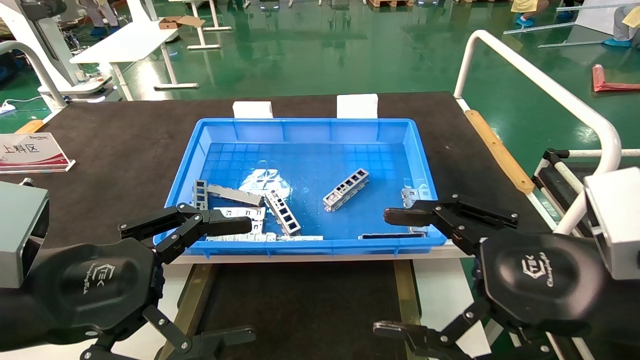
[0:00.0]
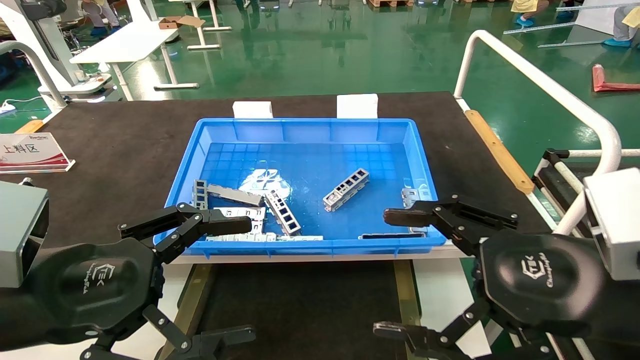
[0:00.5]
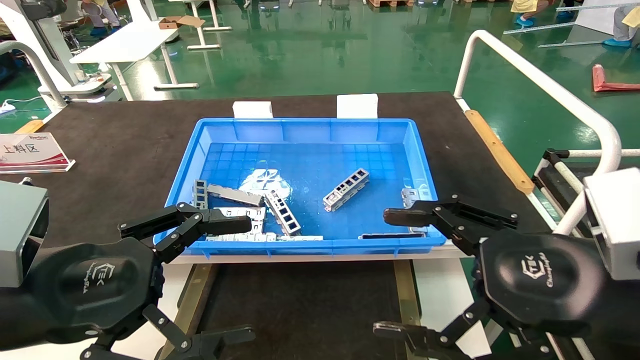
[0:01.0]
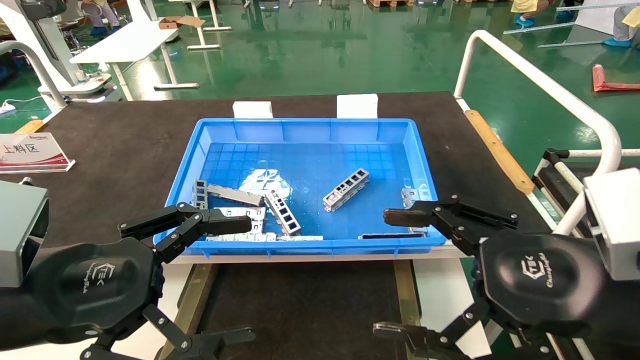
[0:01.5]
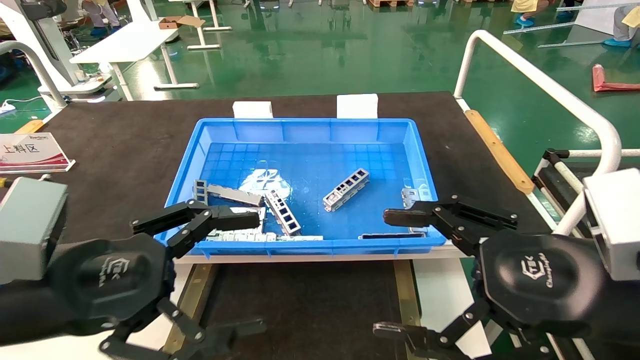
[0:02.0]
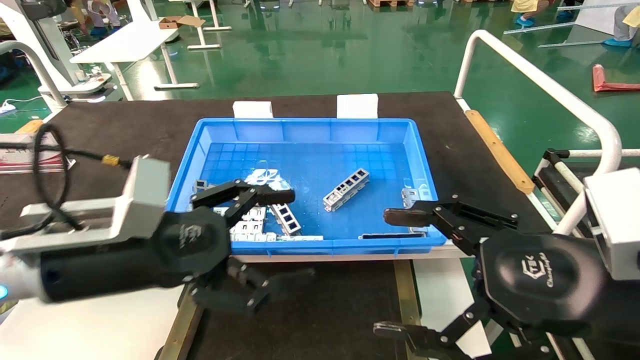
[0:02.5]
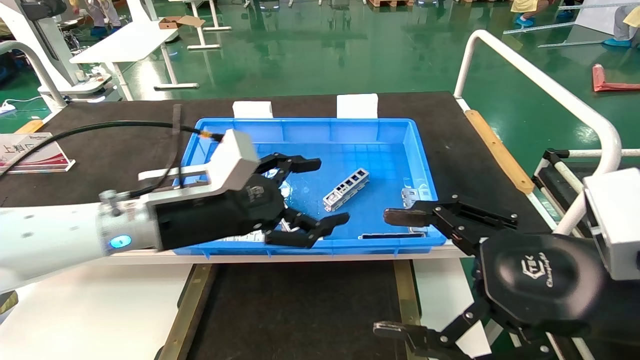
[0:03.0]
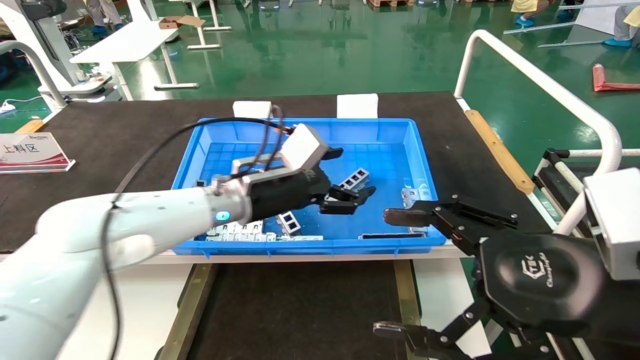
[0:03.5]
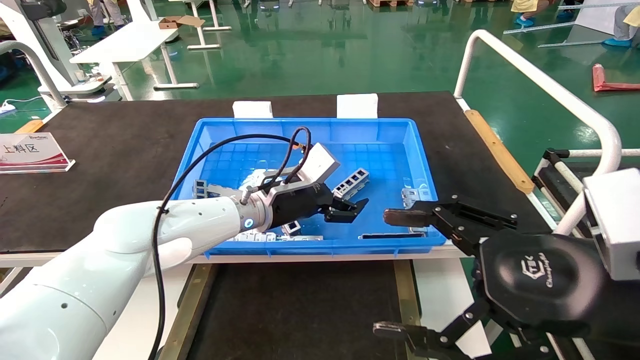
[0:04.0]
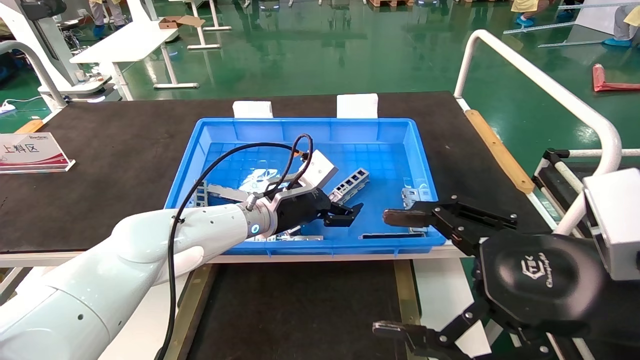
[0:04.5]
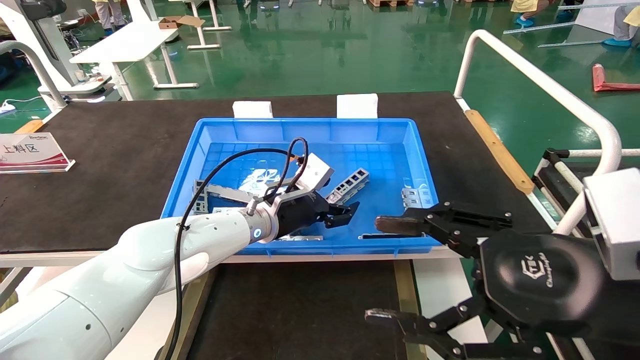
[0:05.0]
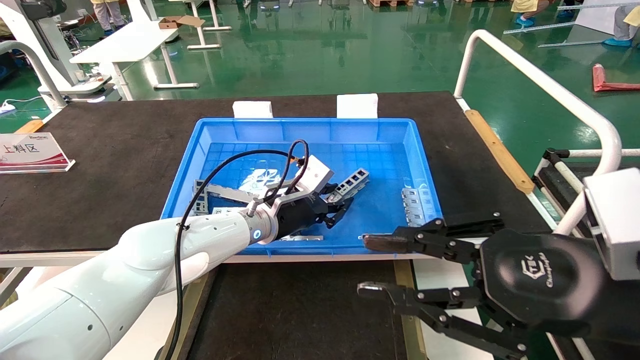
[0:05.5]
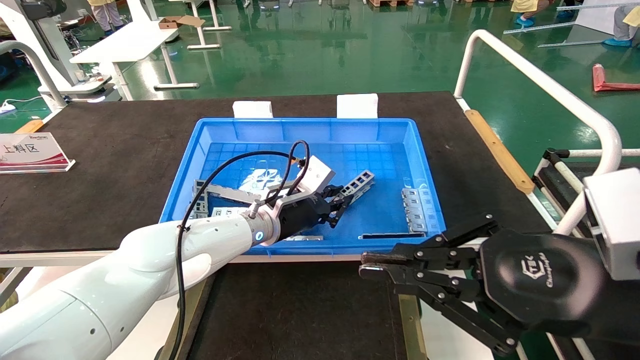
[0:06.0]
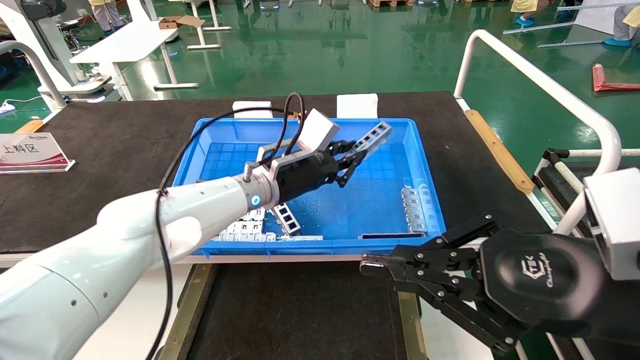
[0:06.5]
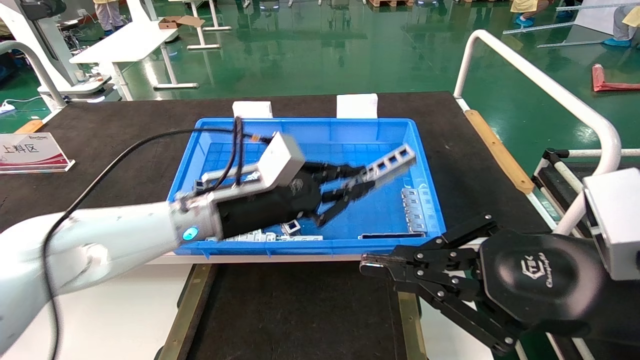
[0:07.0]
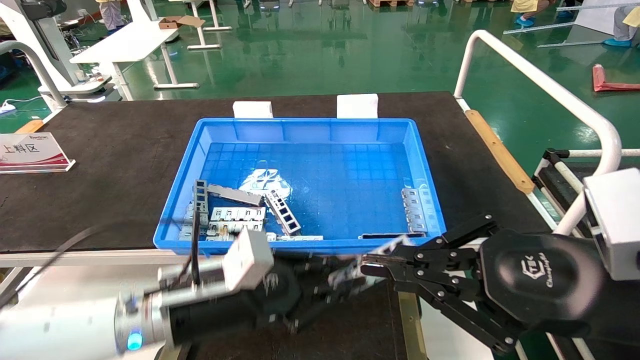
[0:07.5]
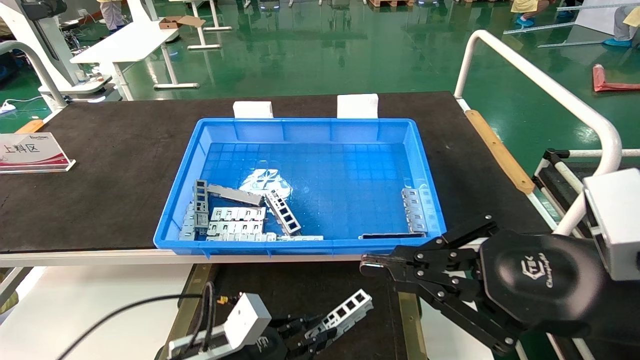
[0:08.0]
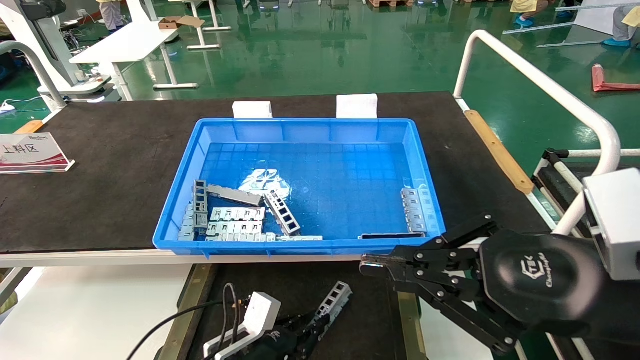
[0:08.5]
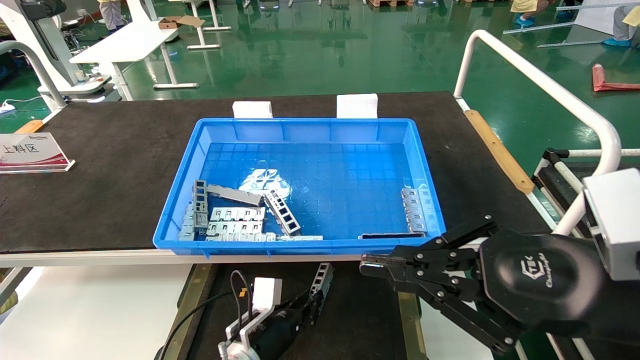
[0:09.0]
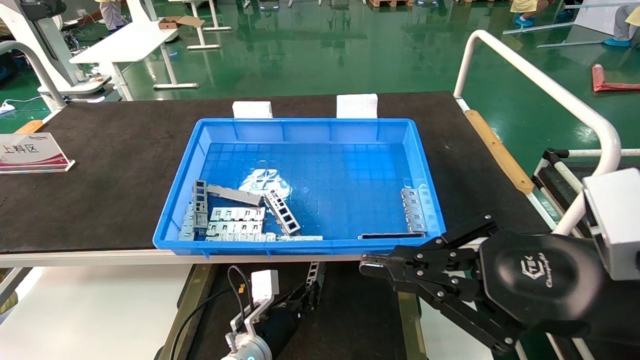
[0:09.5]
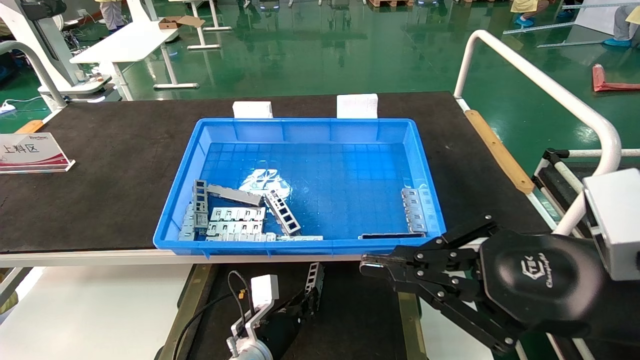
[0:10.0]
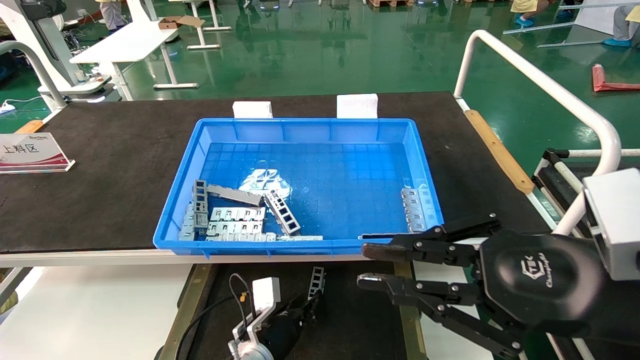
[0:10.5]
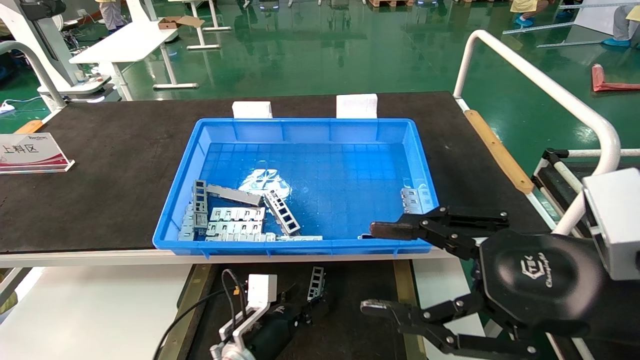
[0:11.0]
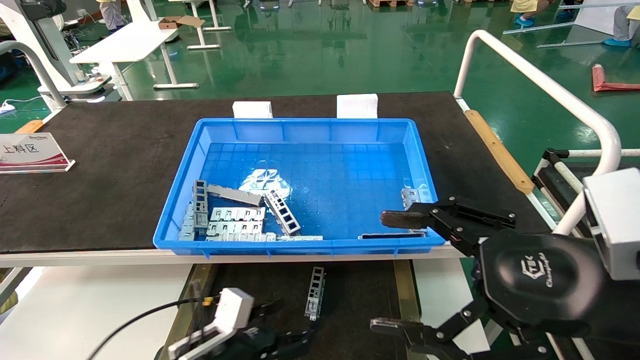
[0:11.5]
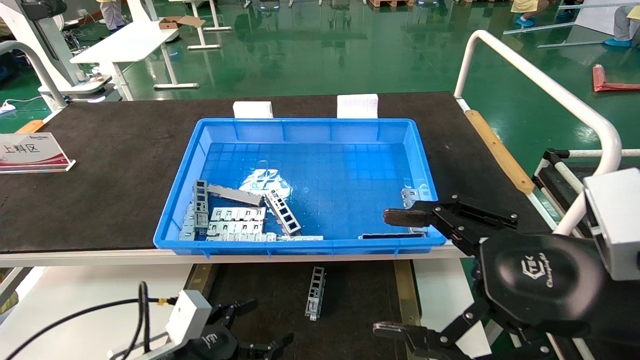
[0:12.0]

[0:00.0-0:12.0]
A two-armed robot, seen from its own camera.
Task of the whole recording: Grasp the part with one hand and place it on the black container.
Step, 0:02.5 to 0:06.5: Pick up the front USB bracket from the feeding area.
Step, 0:07.0 to 0:10.5: Place the front USB bracket into the box.
0:00.0 to 0:02.0: There are only small adjustments of the grippers.
0:02.0 to 0:04.0: The left gripper heads forward and to the right, covering approximately 30 cm.
0:04.0 to 0:06.0: The right gripper closes; the left gripper closes up.
0:06.0 to 0:08.0: The left gripper is displaced backward, downward and to the left by approximately 25 cm.
0:08.0 to 0:10.0: The left gripper goes about 15 cm forward, downward and to the right.
0:10.0 to 0:12.0: The right gripper opens up. The left gripper goes approximately 20 cm to the left, backward and upward, and opens its fingers.
